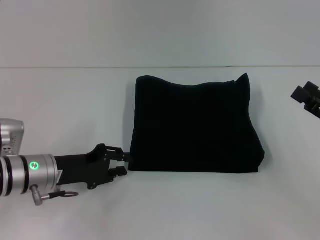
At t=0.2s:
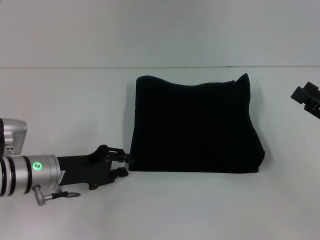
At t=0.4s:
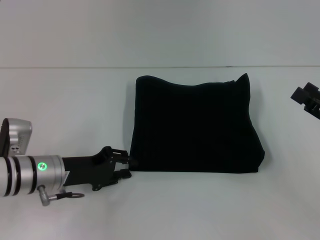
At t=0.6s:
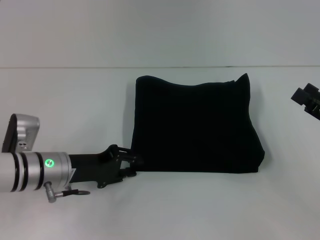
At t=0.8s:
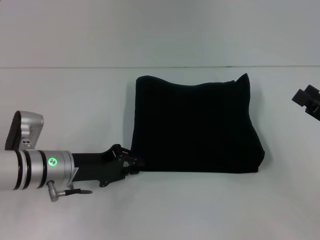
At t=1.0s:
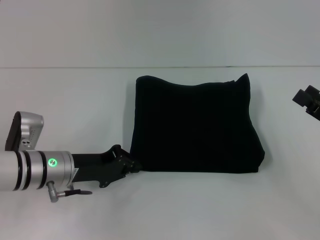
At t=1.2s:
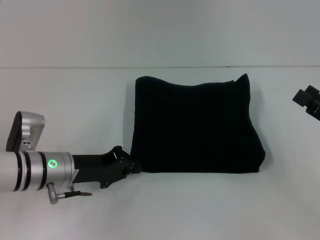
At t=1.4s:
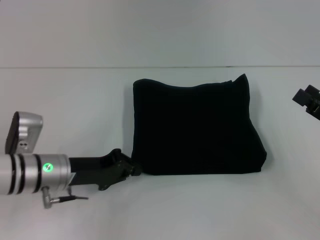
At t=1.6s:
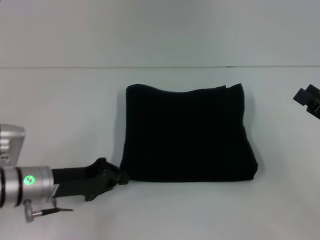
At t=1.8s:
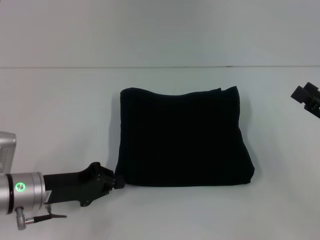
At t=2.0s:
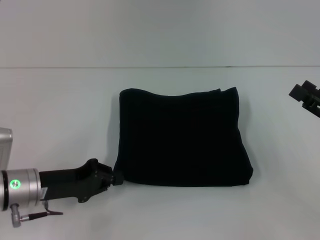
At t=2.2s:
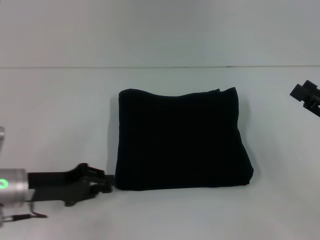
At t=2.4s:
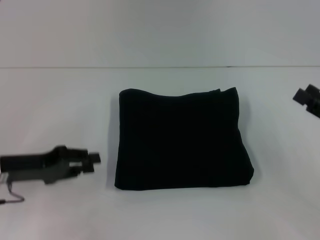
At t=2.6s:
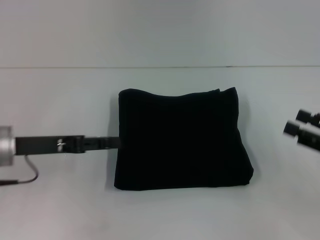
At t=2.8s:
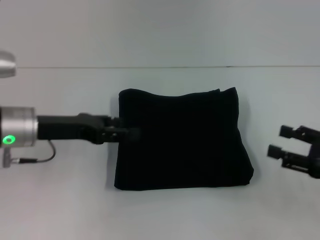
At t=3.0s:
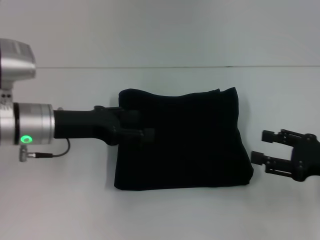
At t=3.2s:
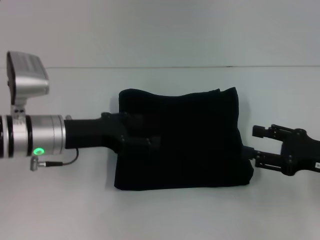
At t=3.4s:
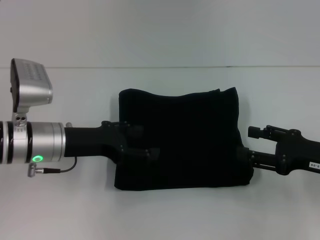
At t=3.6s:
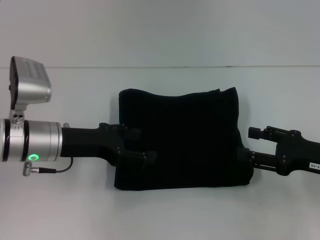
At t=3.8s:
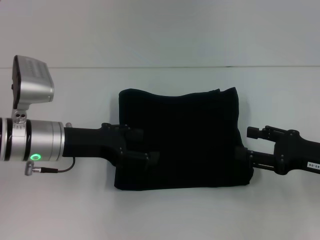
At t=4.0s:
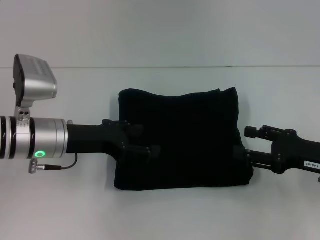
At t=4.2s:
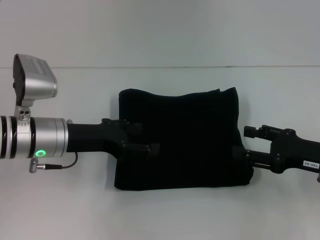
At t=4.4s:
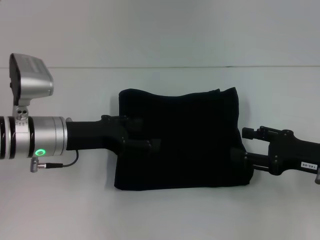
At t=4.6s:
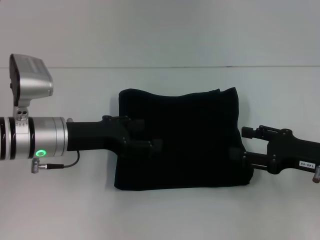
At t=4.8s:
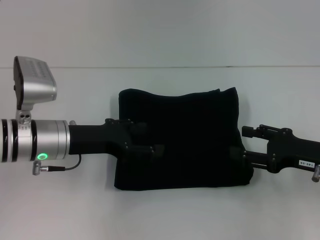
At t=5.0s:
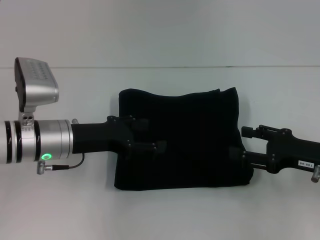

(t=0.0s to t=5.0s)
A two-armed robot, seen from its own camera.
t=0.0s - t=1.6s: The left gripper closes.
t=1.6s - t=3.4s: The left gripper is displaced upward by roughly 5 cm, and opens.
t=3.4s - t=5.0s: The grippers move only a little.
